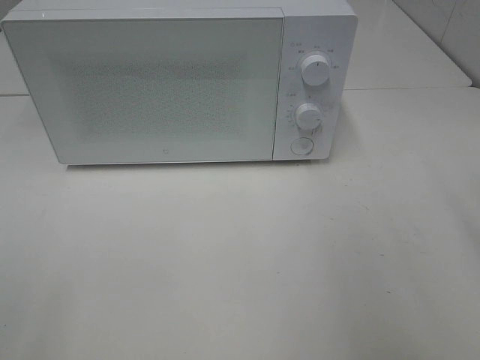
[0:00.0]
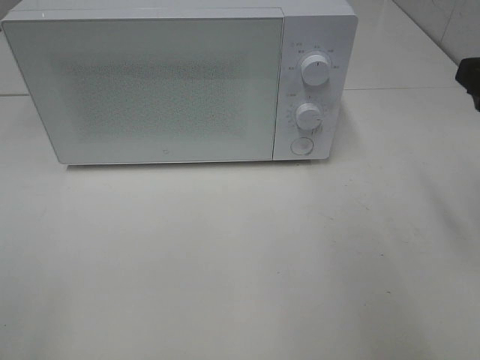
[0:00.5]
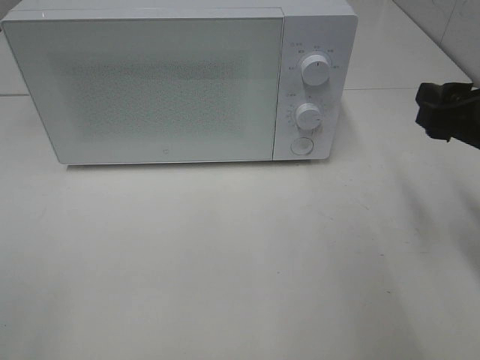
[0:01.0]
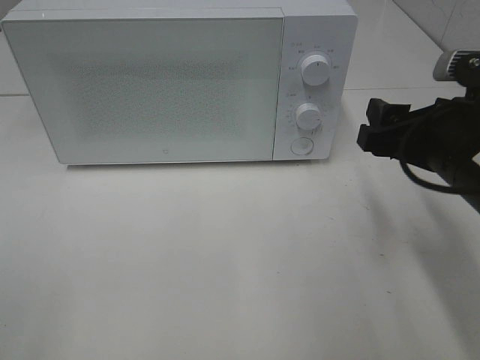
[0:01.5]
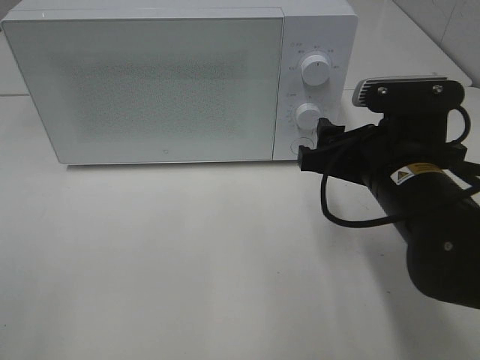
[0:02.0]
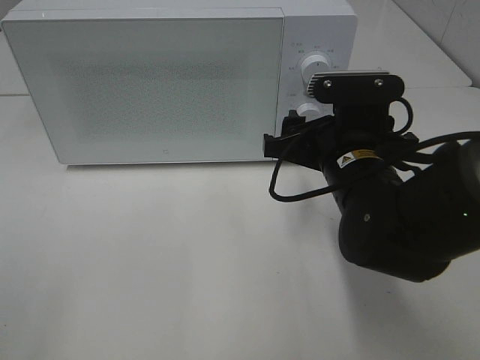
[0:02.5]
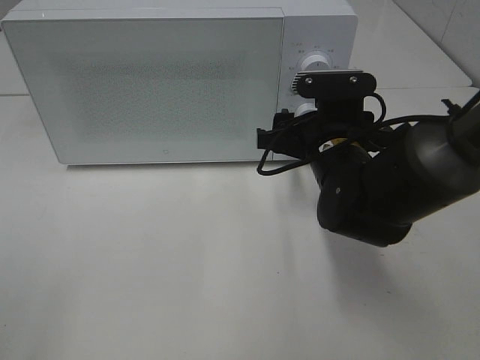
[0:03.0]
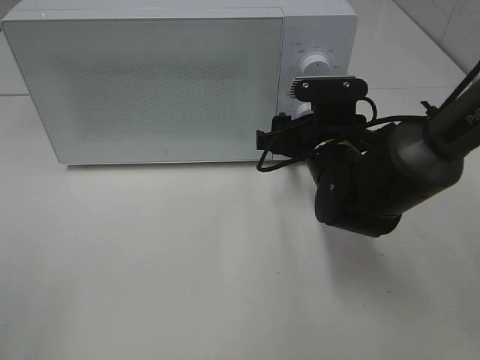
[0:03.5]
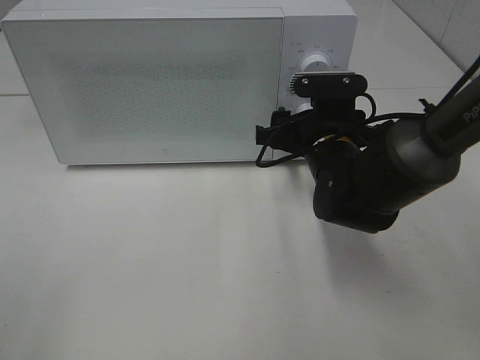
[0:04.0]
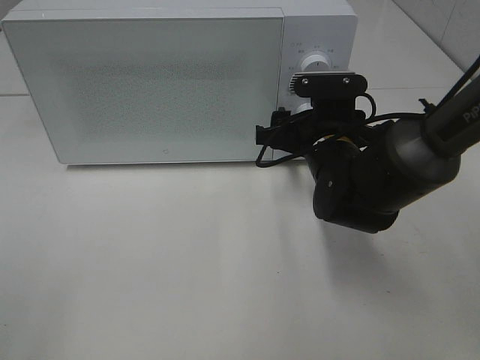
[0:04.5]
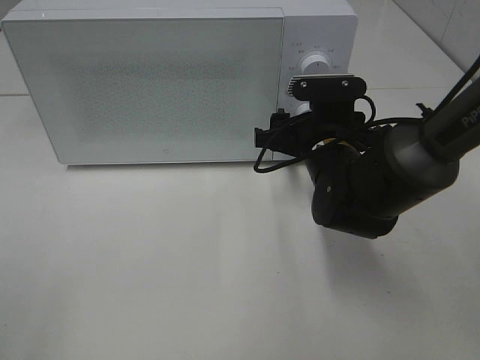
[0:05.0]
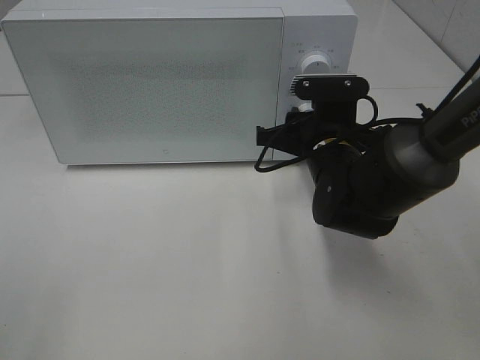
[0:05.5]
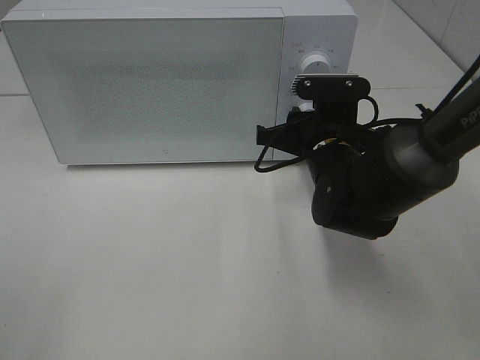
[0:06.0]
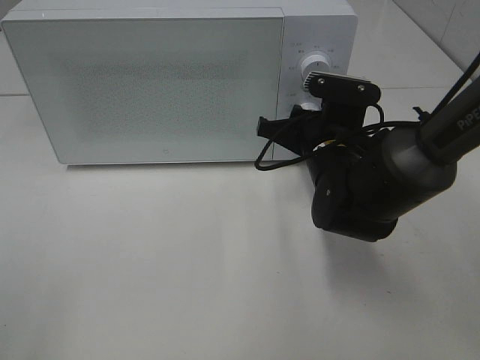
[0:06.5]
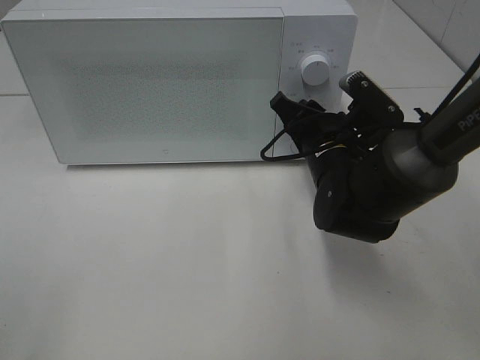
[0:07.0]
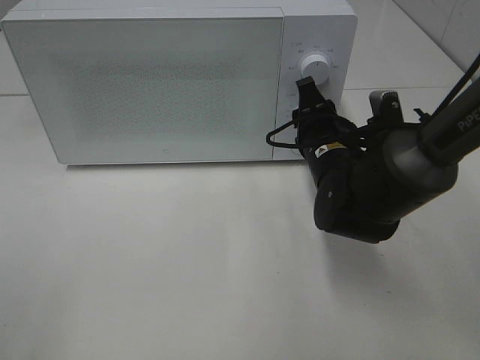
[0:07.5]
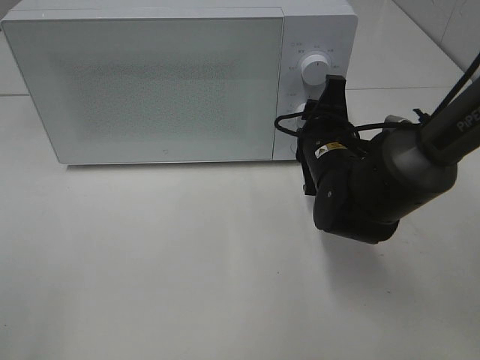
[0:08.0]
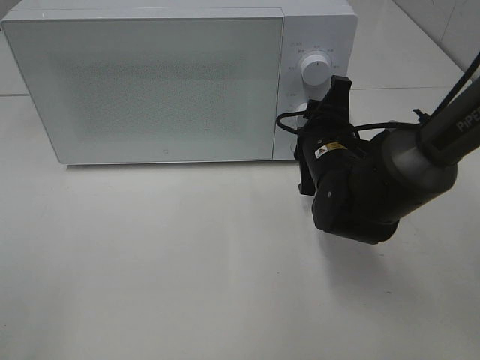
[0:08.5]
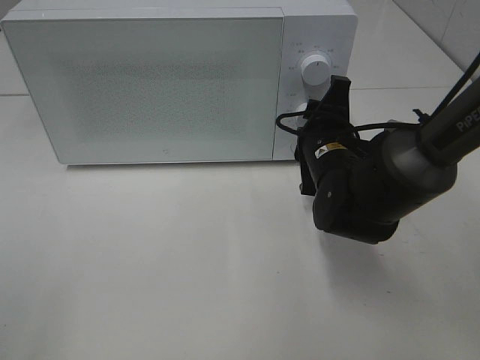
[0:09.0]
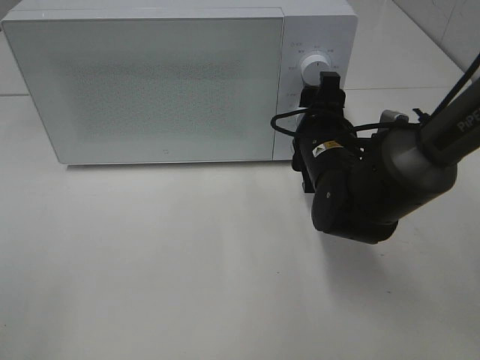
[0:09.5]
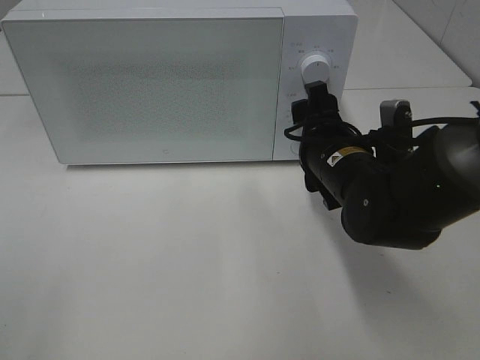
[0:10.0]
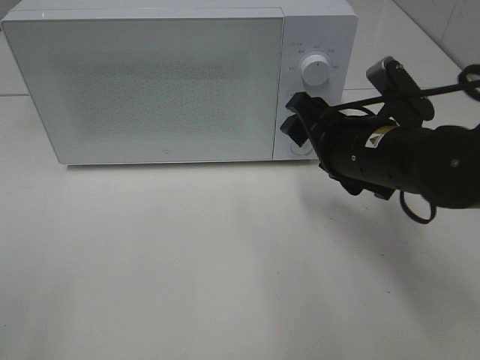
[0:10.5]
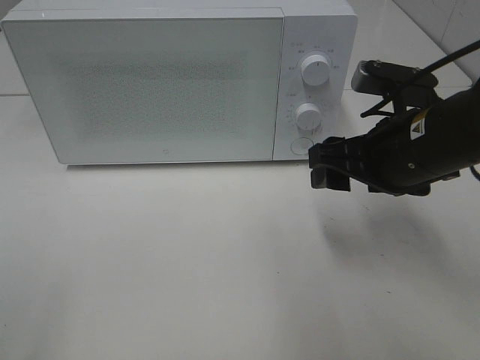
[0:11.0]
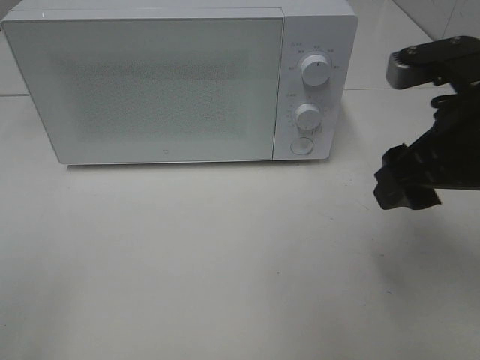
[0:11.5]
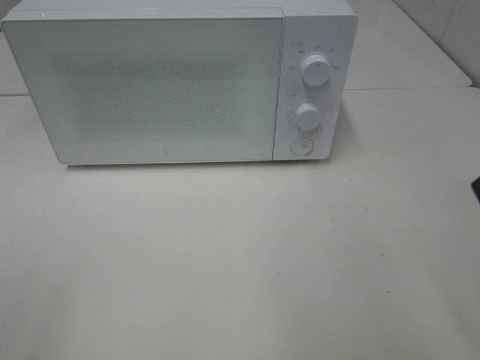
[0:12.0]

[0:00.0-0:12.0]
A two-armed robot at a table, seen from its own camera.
Task of the whole recording: Heat Sandwich.
Step, 0:00.0 to 0:10.5: Right hand: twist timer button.
0:00.0 to 0:02.0: The right gripper shifts some 20 cm downward, to the left and forward.
0:02.0 to 0:04.0: The right gripper heads forward, covering roughly 10 cm.
0:04.0 to 0:06.0: Both grippers stay about where they are.
0:10.0 to 0:12.0: The right gripper moves upward, backward and to the right, approximately 25 cm.

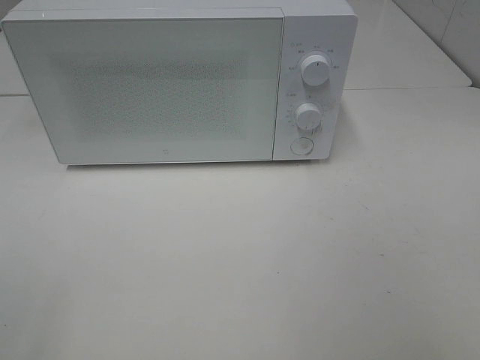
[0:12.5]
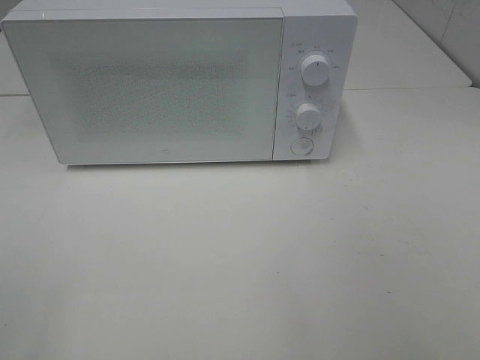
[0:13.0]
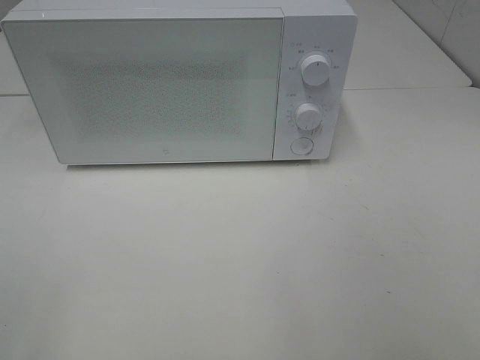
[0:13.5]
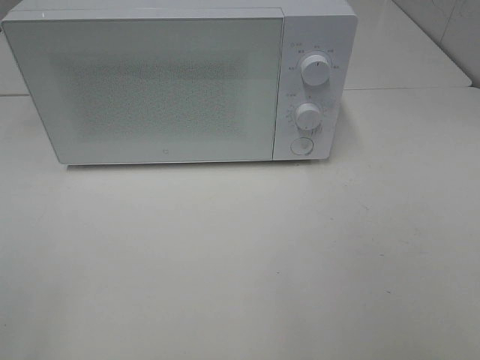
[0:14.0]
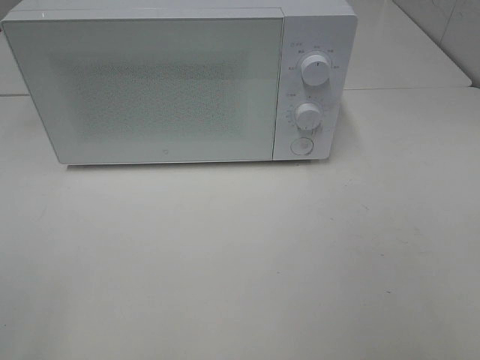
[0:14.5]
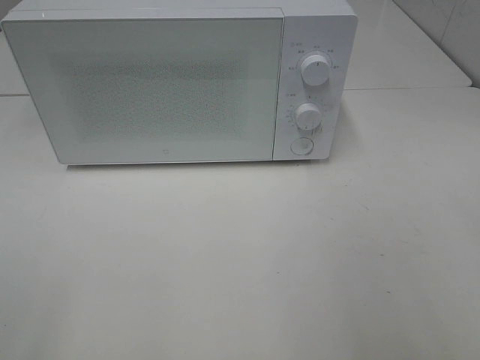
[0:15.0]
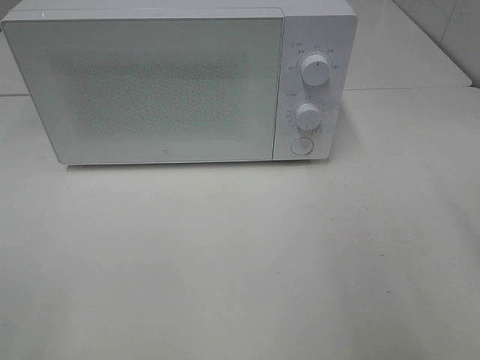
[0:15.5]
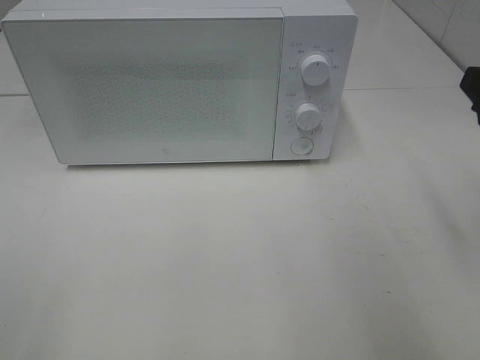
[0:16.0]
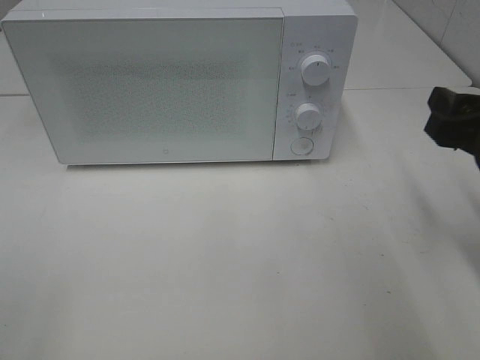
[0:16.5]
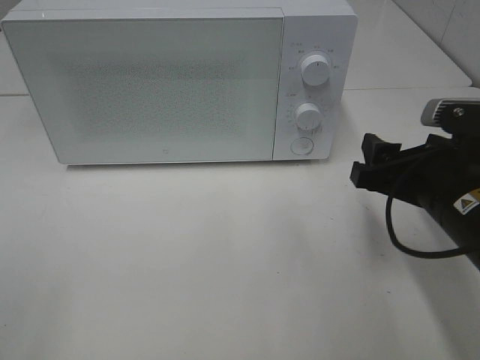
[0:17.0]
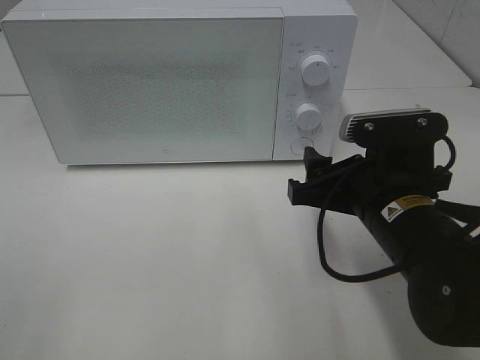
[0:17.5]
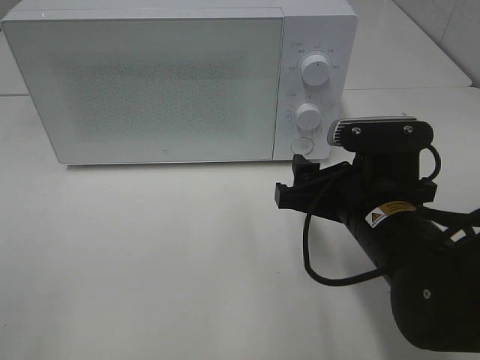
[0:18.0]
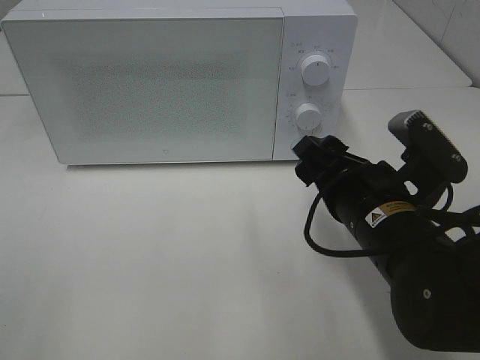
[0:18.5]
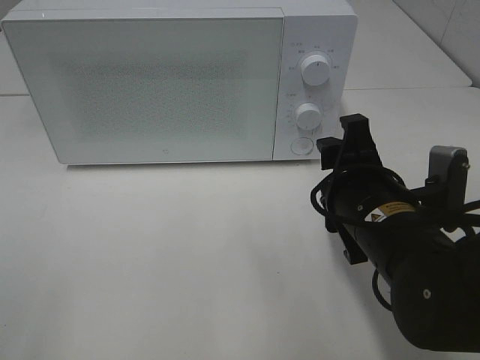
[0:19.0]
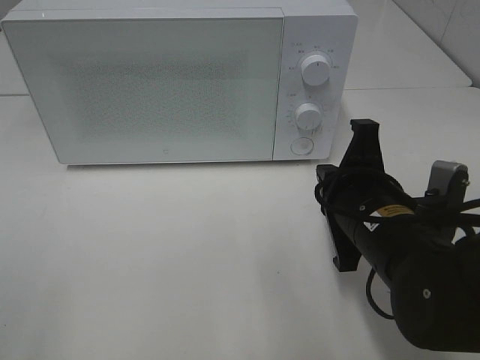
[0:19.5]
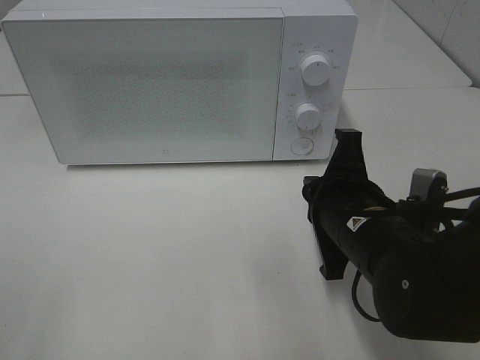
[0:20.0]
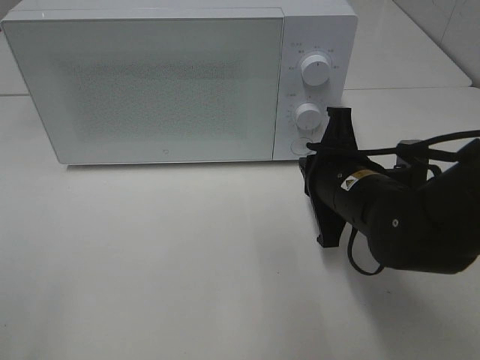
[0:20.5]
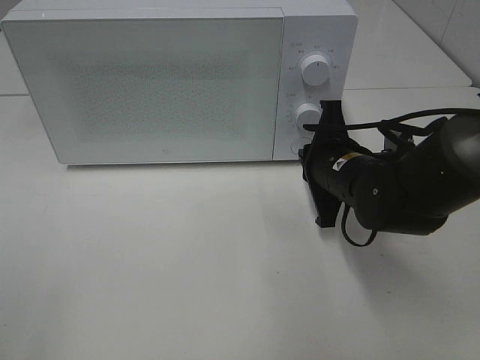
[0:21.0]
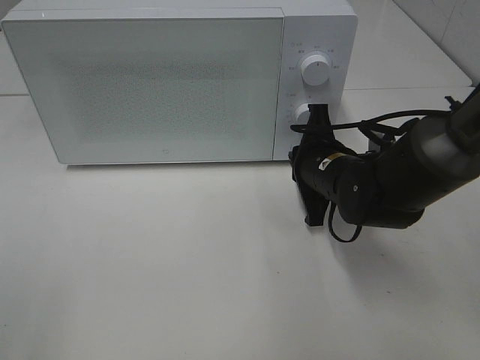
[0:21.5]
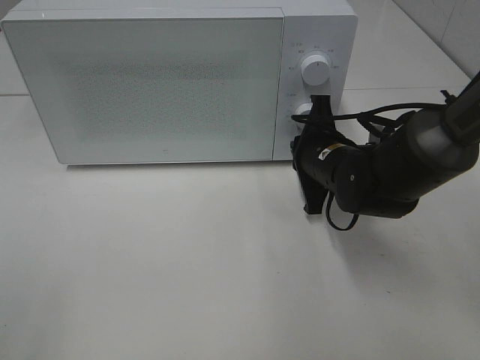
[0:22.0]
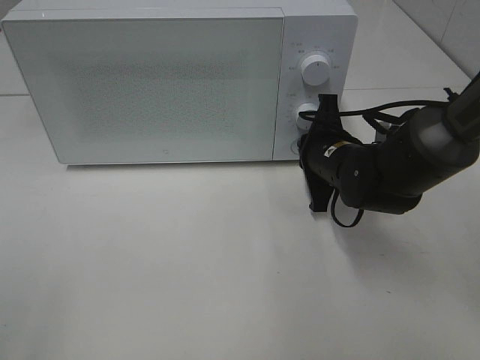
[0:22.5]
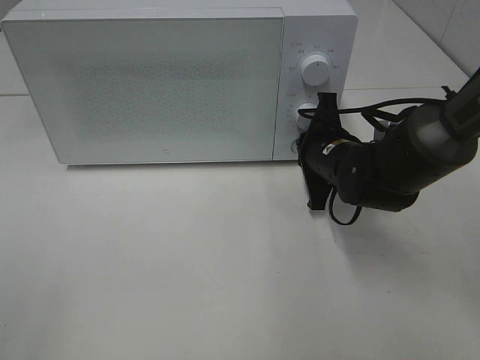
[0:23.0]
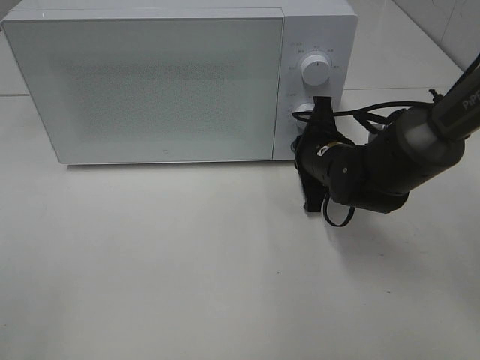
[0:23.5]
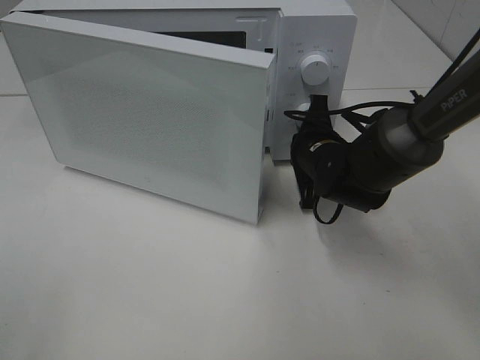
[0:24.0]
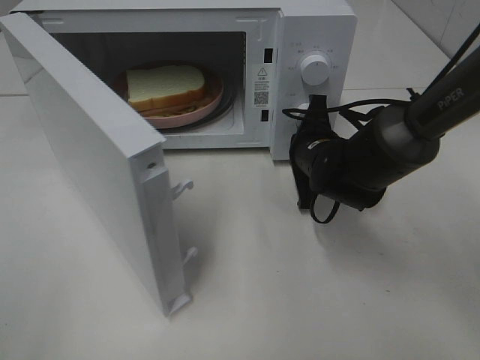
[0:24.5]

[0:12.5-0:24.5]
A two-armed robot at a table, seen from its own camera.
Task of the whole recording: Heat Sandwich.
0:14.5 to 0:16.5: The right gripper heads forward and downward, covering approximately 25 cm.
0:16.5 to 0:18.5: The right gripper shifts some 15 cm to the left and downward.
0:18.5 to 0:20.5: The right gripper shifts roughly 5 cm forward, and closes up.
0:20.5 to 0:22.5: The right gripper is displaced forward by some 10 cm.

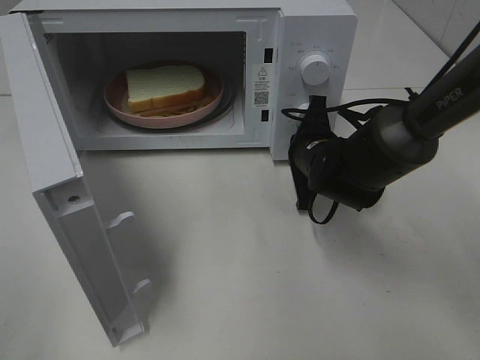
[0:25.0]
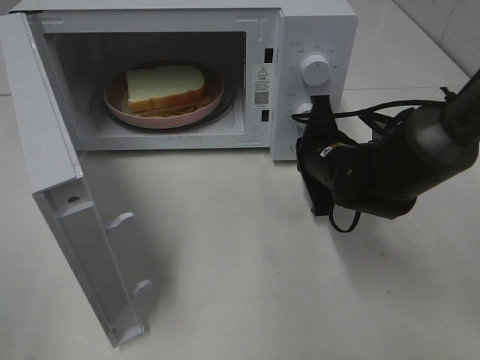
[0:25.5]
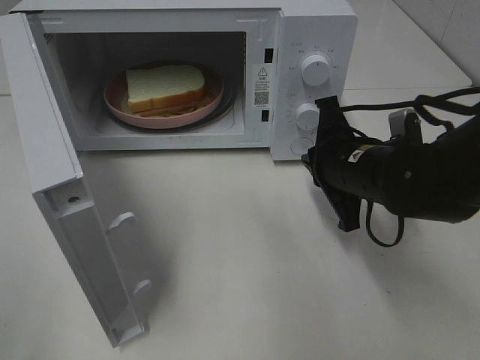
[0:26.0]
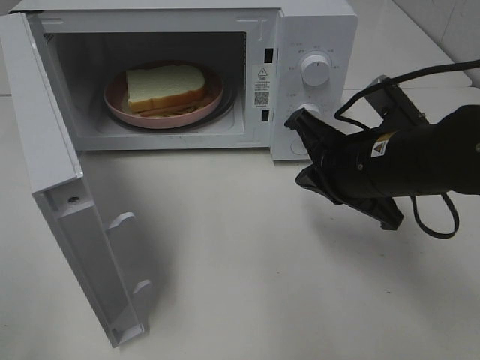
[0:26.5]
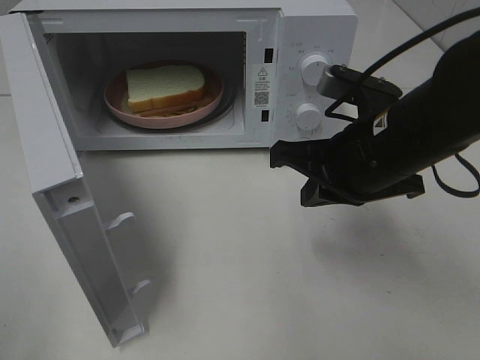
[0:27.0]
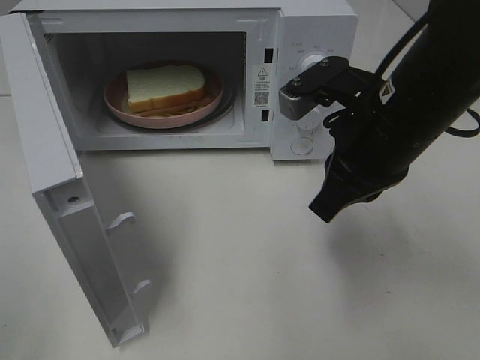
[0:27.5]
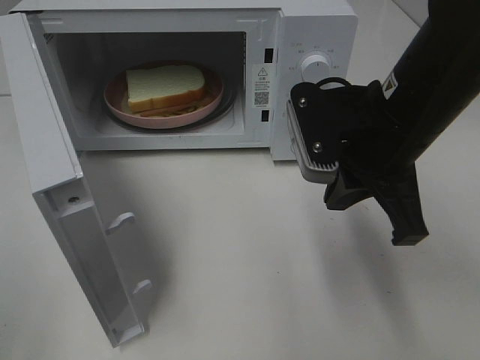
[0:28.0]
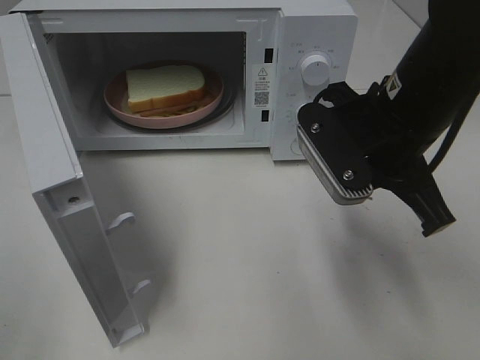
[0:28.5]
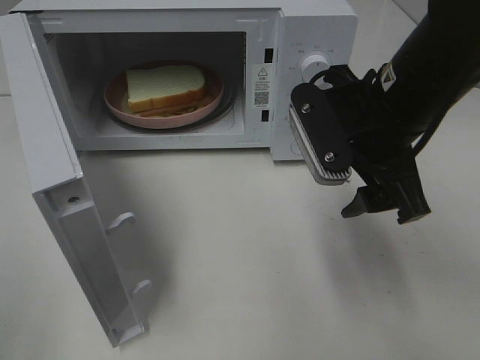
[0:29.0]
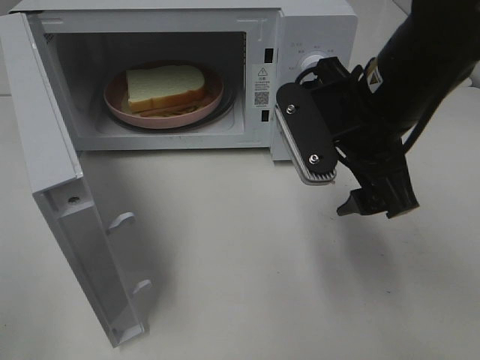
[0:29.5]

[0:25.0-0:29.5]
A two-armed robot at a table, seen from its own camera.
Task of the whole recording: Heat Sandwich.
0:25.0 to 0:27.0: The right gripper is displaced backward and upward by about 15 cm.
0:27.0 to 0:29.5: The right gripper opens up.
